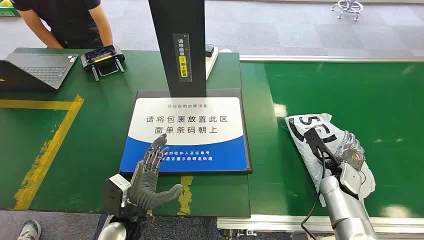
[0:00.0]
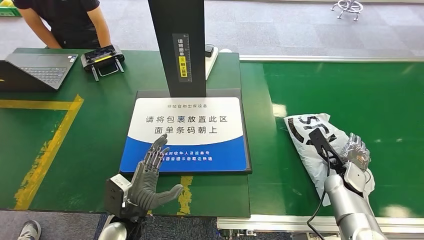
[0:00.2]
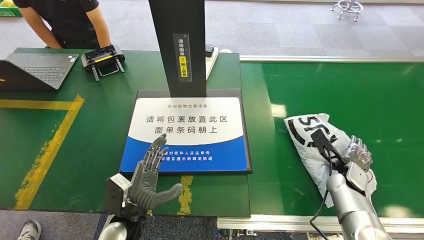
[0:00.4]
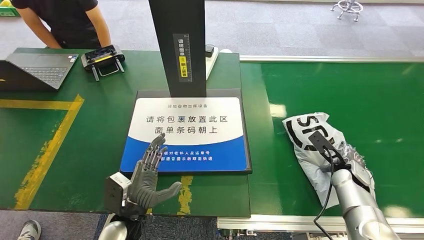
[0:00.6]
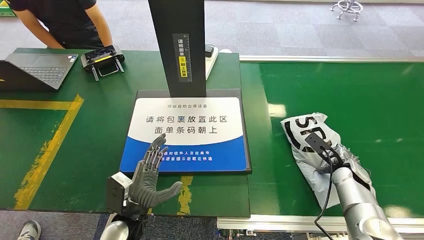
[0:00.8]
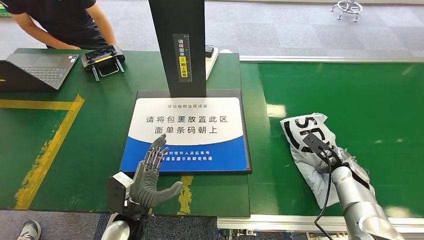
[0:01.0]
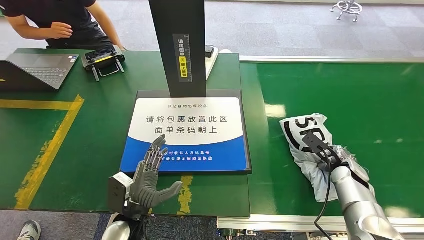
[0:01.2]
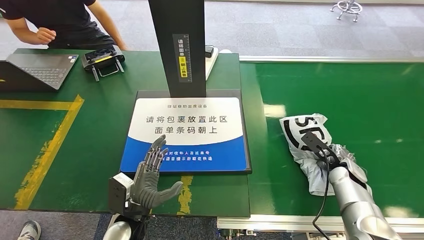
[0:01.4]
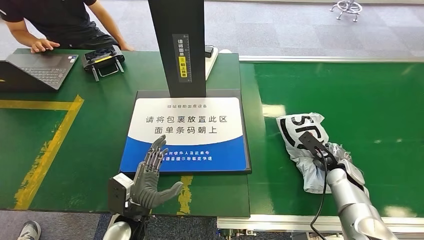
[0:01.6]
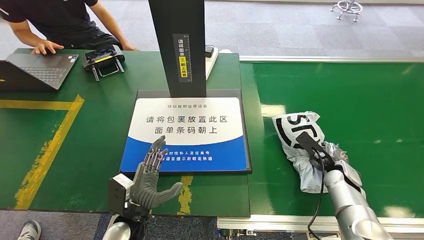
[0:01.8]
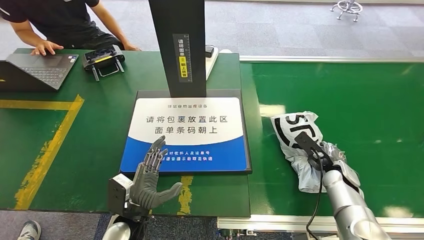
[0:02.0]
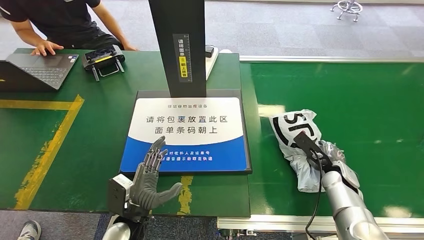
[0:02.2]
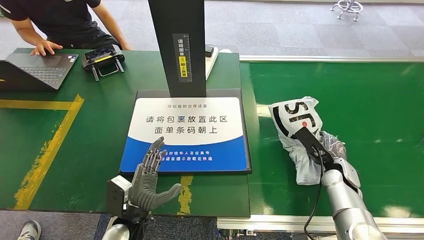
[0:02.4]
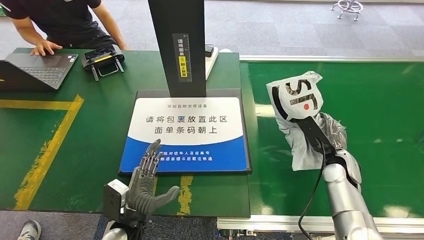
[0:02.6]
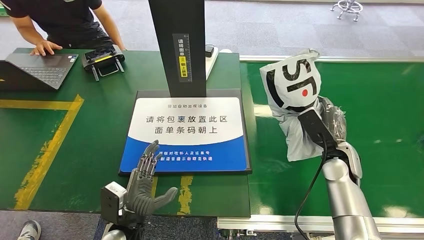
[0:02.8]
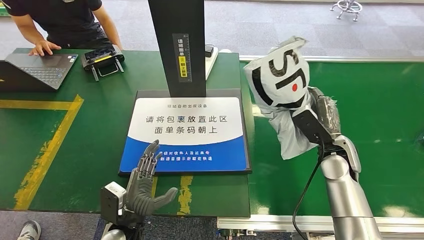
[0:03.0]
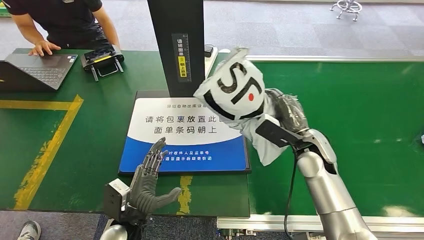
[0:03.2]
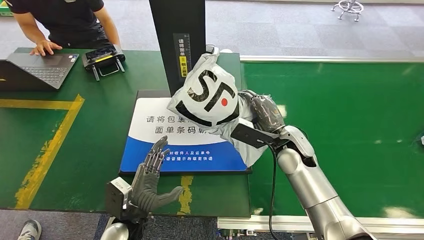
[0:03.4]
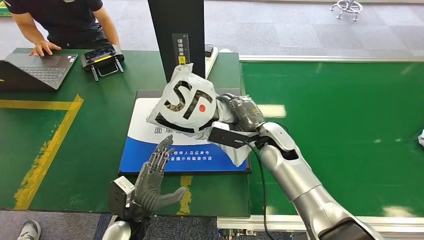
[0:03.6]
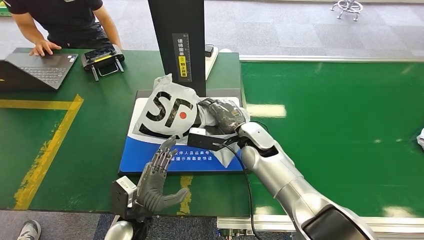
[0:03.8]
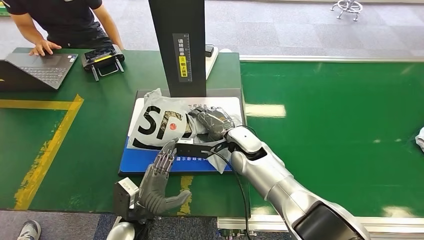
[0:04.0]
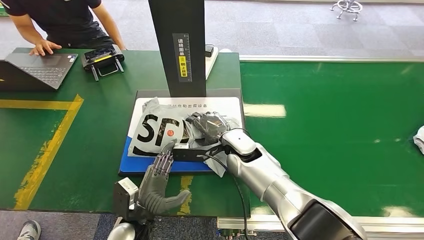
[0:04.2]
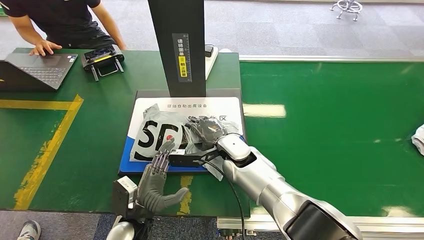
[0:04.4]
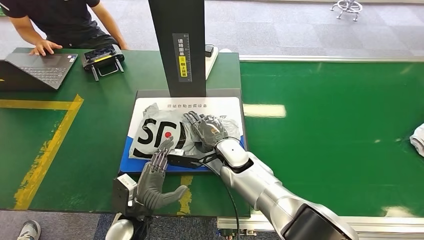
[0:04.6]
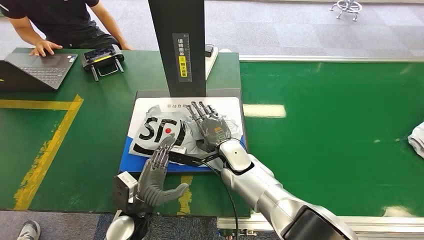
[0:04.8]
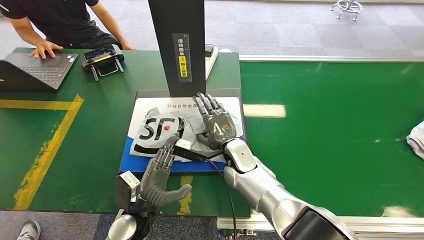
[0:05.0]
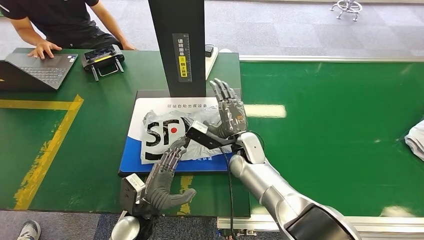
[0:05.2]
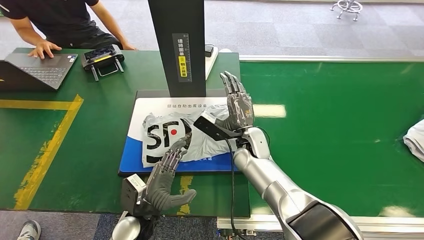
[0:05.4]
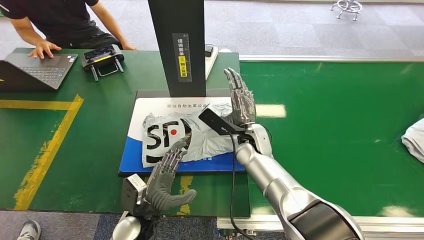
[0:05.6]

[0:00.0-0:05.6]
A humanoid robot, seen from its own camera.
Step, 0:00.0 to 0:03.0: Pick up the package from the conveyor belt.
Step, 0:03.2 to 0:05.6: Place the package onto the inbound machine.
0:01.4 to 0:02.8: The right hand goes roughly 5 cm upward.
